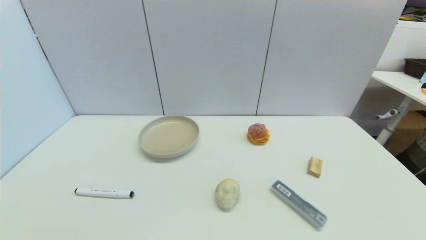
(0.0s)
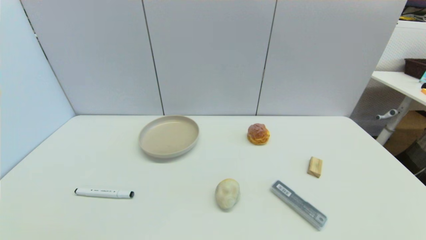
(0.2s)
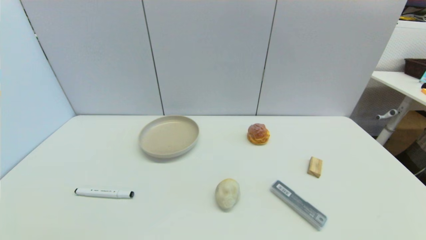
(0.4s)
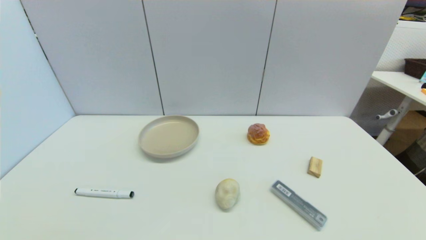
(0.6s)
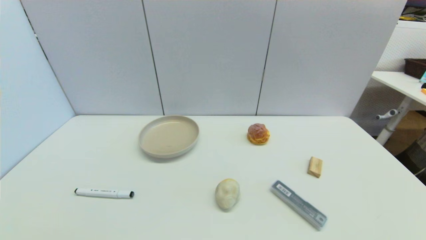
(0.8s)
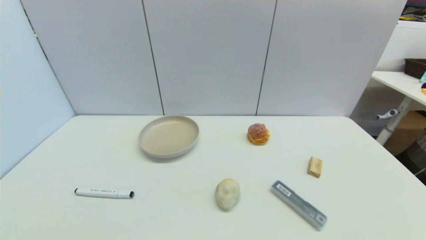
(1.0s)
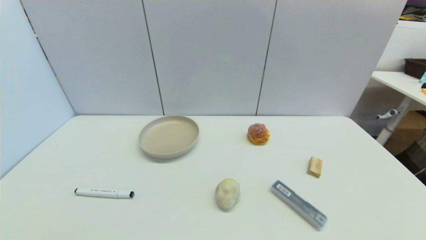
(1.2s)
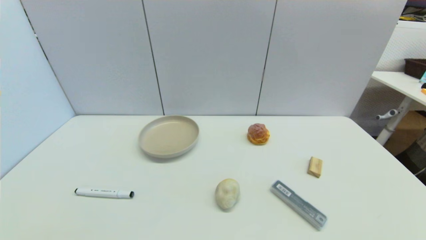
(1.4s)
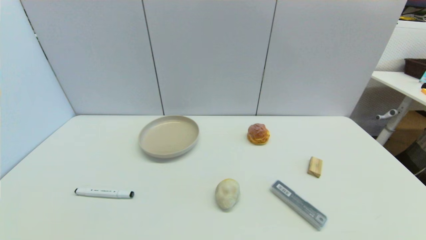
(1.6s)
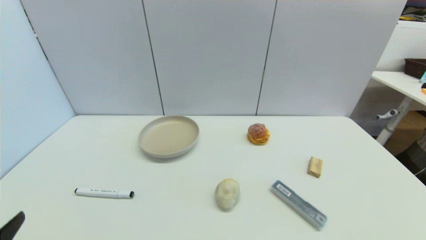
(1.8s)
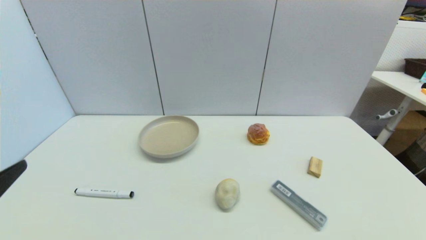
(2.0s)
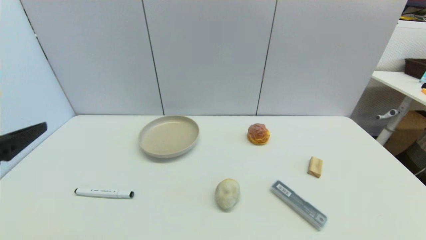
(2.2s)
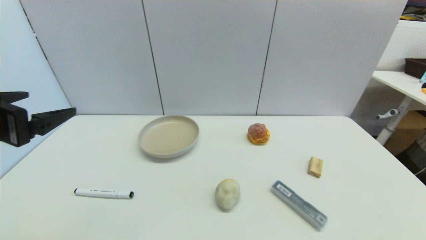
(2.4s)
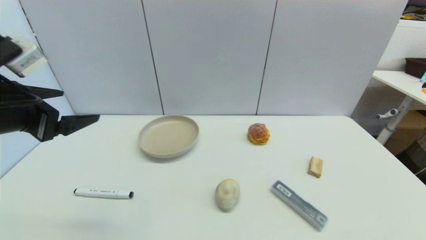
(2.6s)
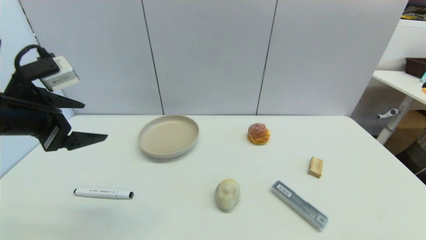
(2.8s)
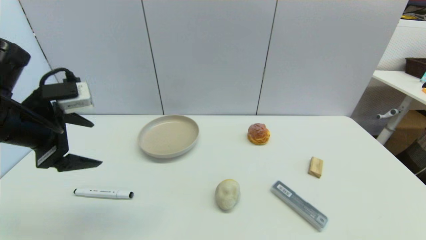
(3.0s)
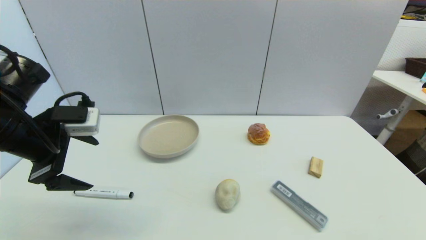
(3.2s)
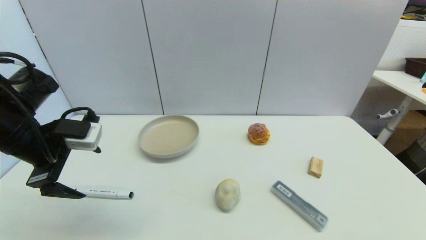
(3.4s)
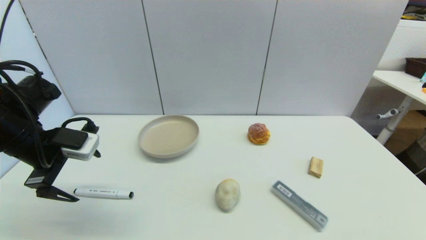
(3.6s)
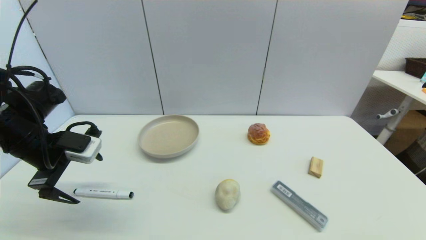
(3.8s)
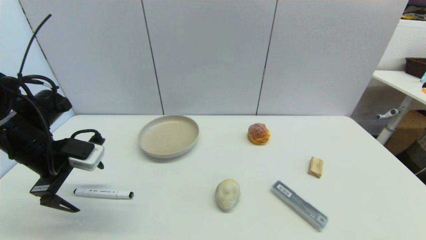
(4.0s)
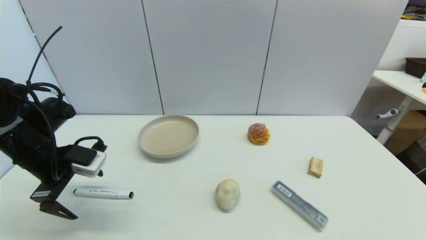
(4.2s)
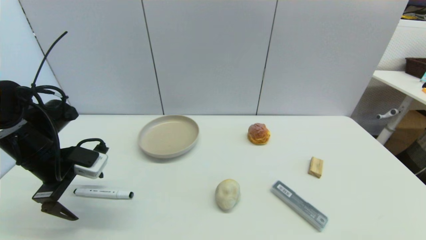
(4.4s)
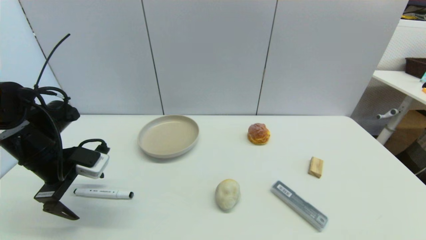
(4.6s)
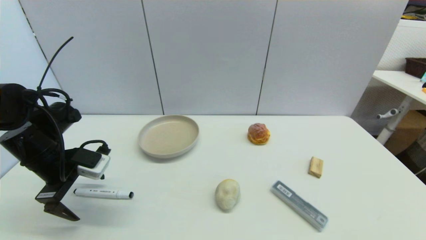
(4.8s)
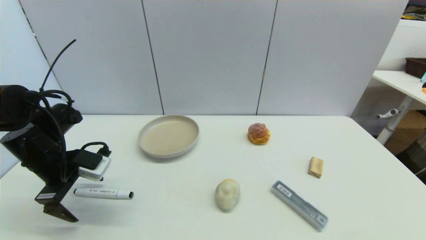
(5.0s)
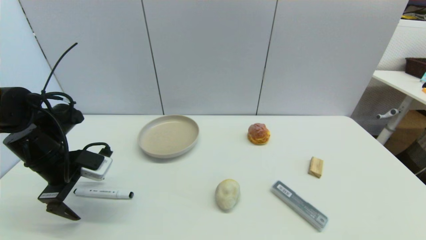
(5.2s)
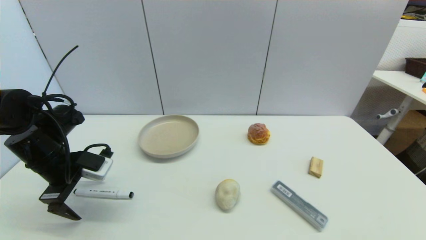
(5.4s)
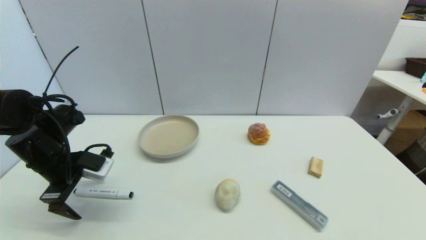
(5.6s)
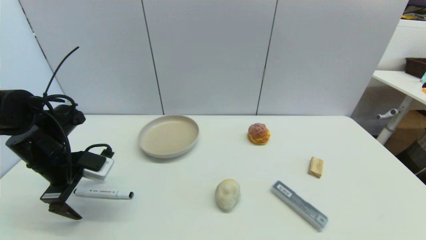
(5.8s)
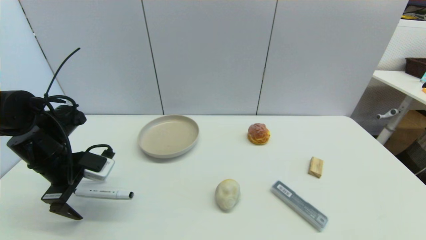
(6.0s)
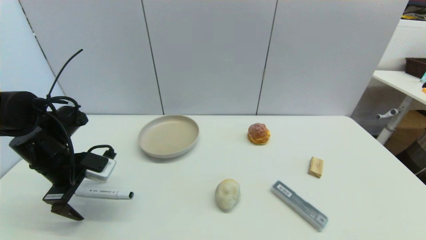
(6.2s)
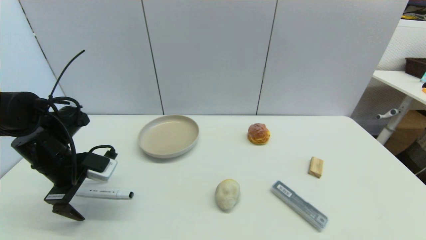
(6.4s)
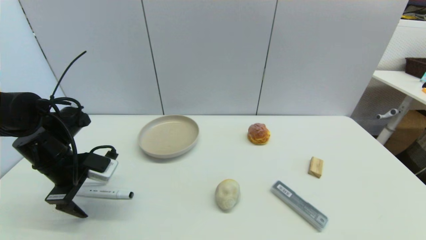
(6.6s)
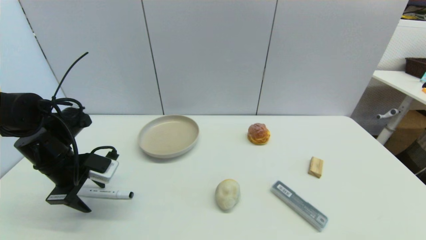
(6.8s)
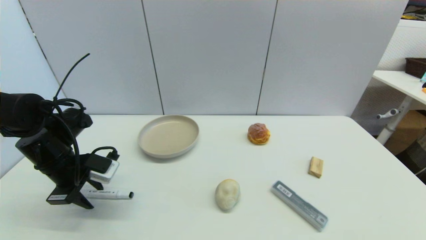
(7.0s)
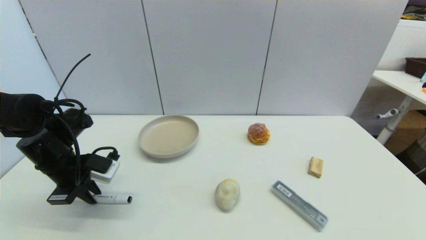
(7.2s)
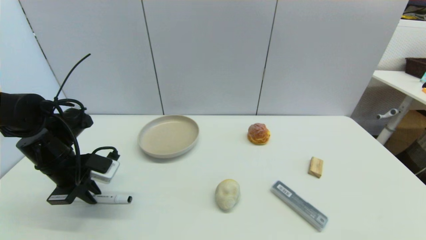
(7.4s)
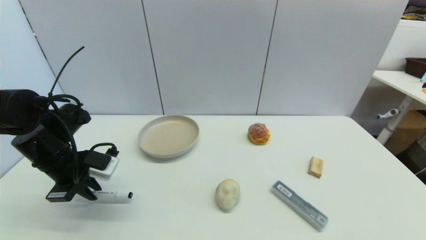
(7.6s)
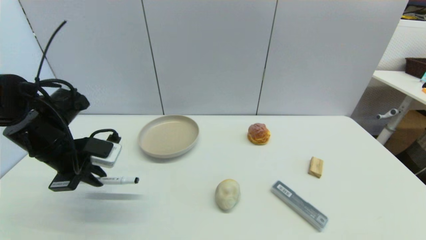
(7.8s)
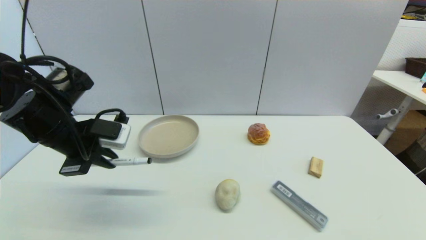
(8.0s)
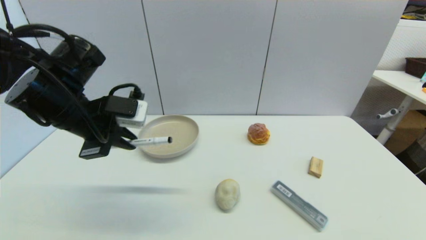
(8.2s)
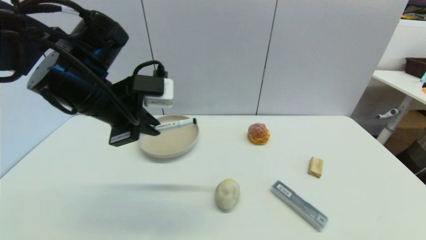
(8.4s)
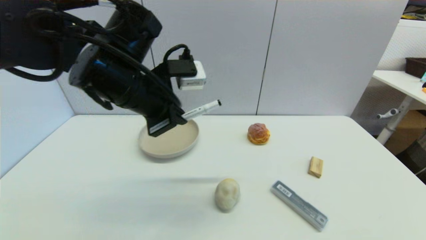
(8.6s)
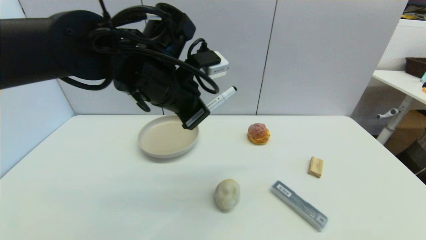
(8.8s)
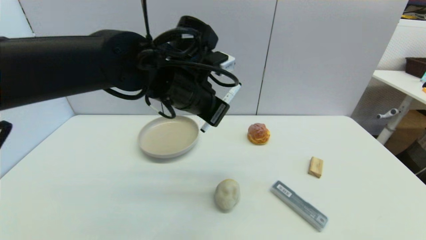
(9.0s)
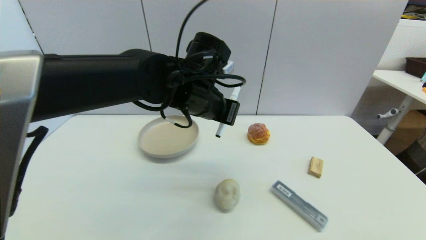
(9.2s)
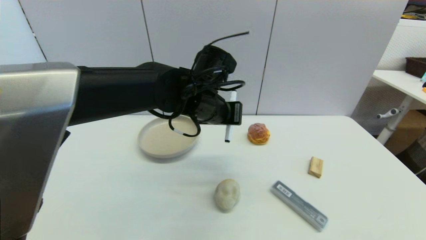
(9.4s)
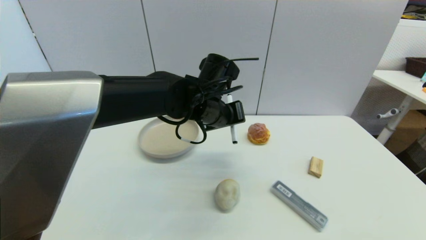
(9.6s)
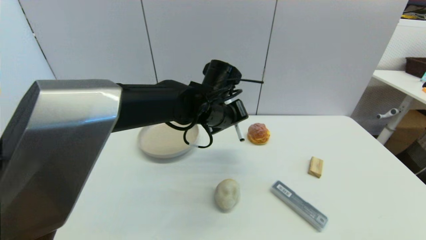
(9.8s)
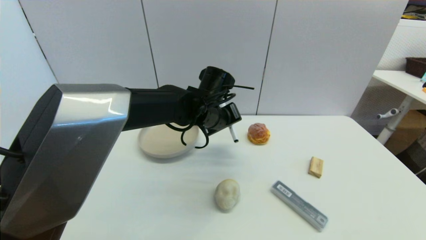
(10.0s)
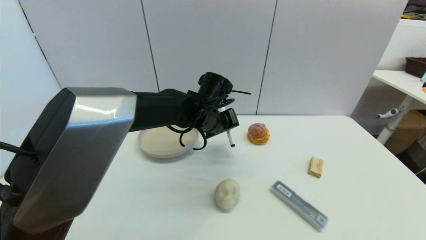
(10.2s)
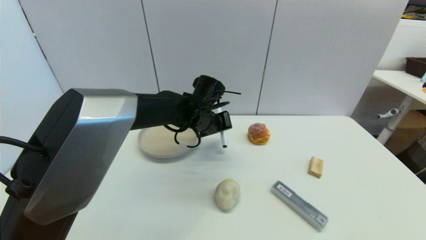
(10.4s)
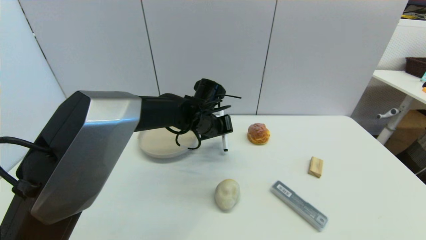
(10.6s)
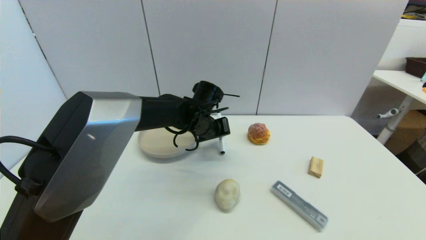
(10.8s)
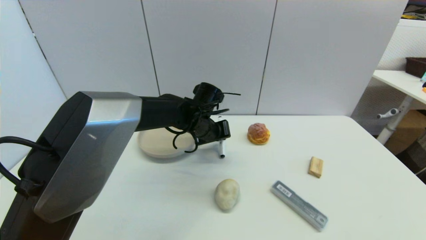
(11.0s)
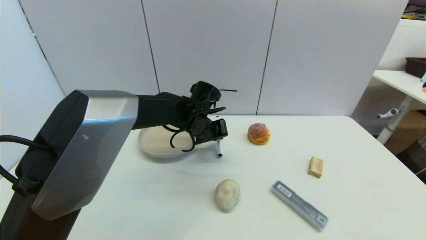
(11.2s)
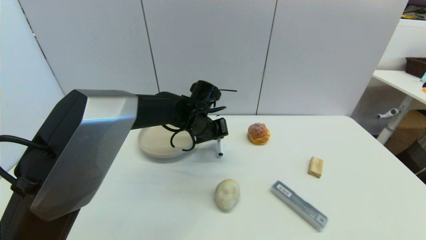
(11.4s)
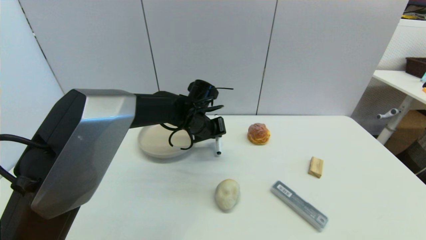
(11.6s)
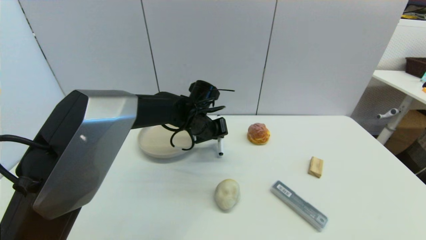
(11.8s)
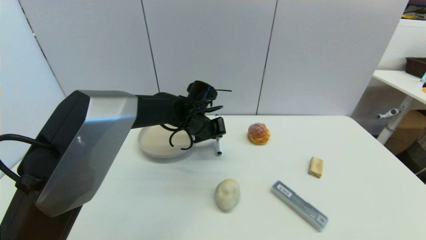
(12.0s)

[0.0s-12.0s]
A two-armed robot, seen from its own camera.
Task of the whole recording: put the black marker in the designated position.
Step, 1.8s to 7.4s: Grasp the Marker pen with left gripper.
1.6s to 3.0s: The left gripper goes some 30 cm forward and upward.
3.0s to 4.4s: The left gripper moves downward, about 10 cm.
4.4s to 6.0s: There are only small adjustments of the grippers.
6.0s to 7.6s: The left gripper closes its fingers.
7.6s to 9.0s: The left gripper heads to the right and upward, covering some 30 cm.
9.0s to 10.4s: The left gripper is displaced downward and forward by roughly 15 cm.
10.4s to 12.0s: The grippers stay close to where they were, moving slightly.

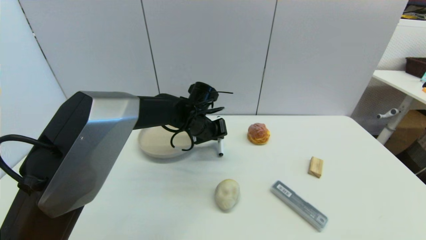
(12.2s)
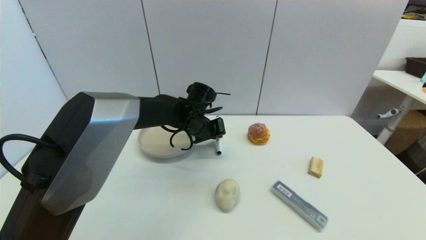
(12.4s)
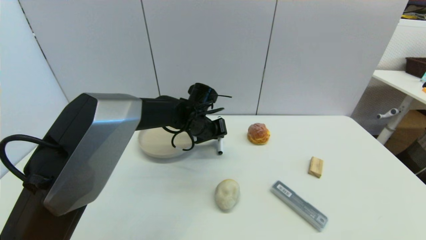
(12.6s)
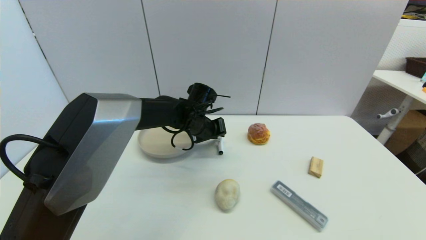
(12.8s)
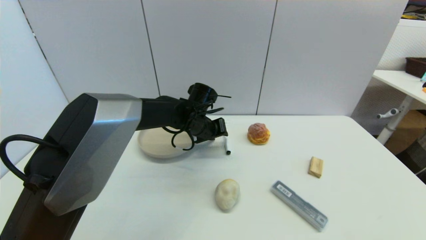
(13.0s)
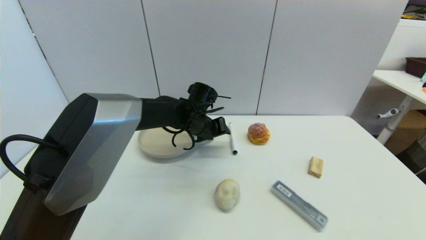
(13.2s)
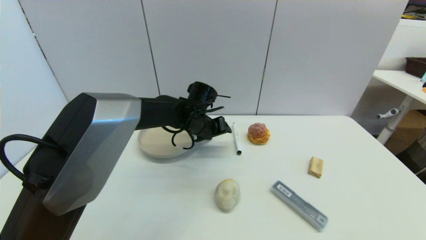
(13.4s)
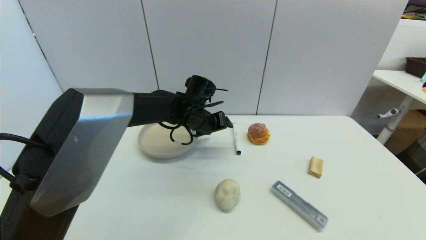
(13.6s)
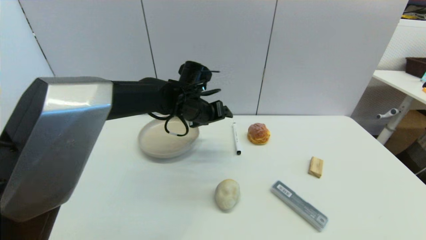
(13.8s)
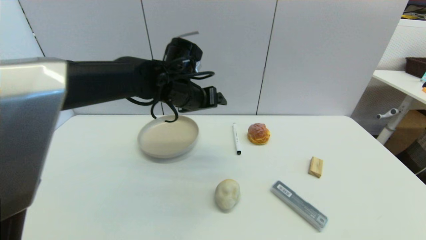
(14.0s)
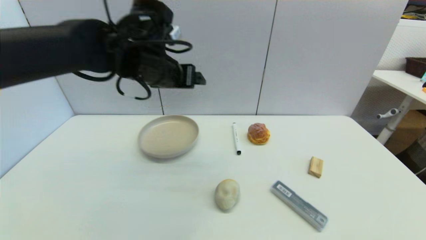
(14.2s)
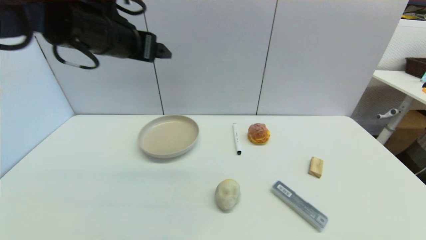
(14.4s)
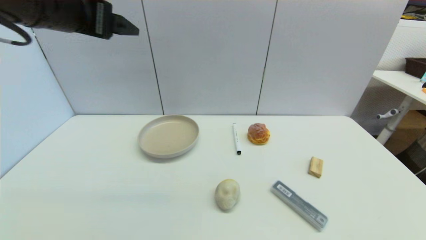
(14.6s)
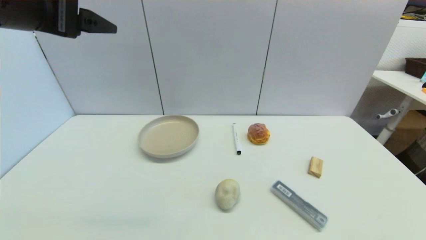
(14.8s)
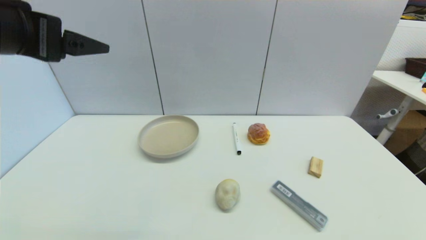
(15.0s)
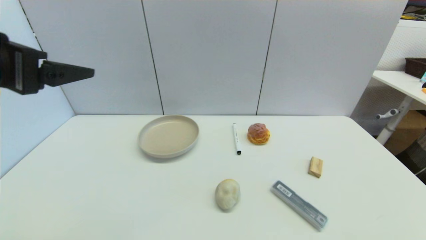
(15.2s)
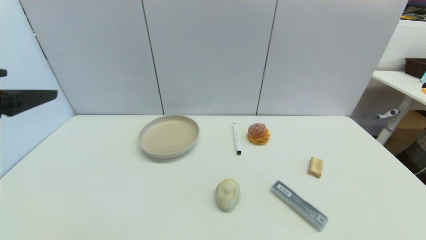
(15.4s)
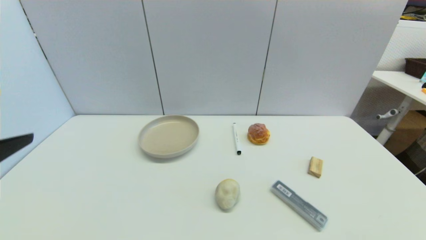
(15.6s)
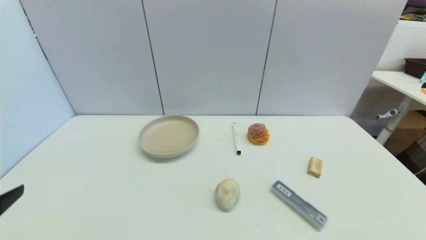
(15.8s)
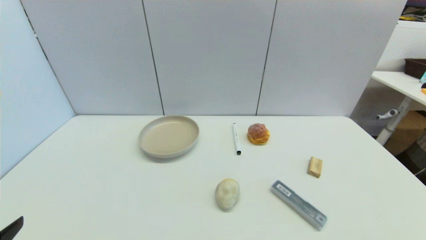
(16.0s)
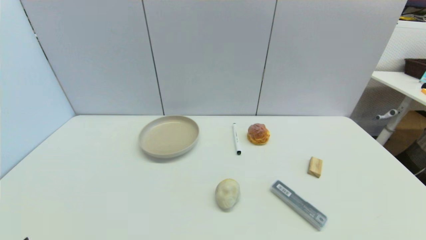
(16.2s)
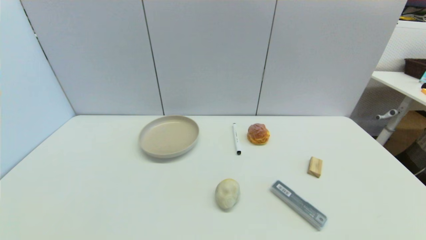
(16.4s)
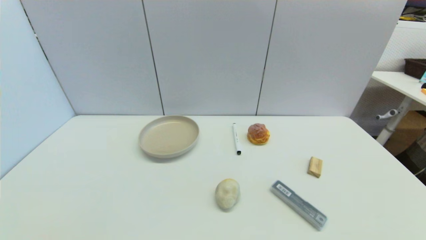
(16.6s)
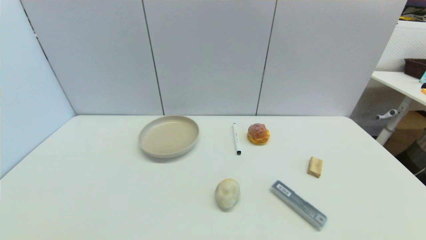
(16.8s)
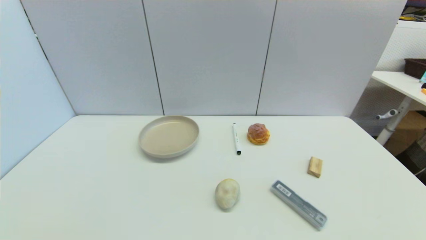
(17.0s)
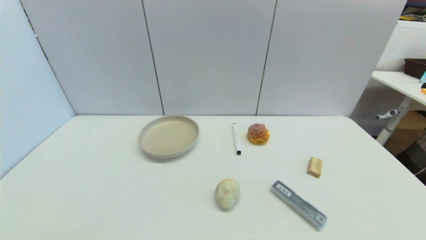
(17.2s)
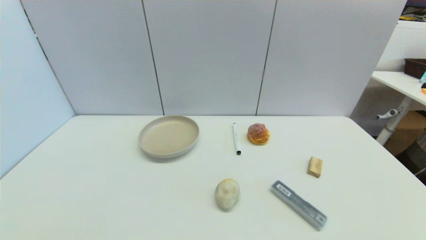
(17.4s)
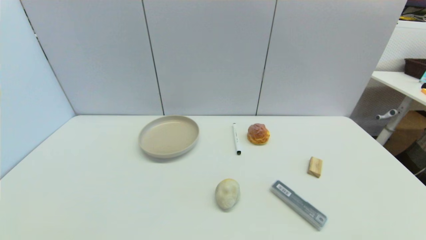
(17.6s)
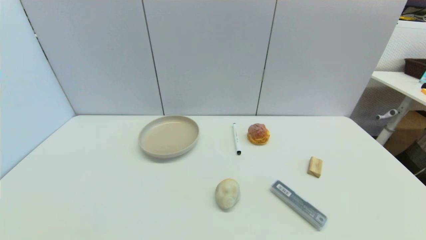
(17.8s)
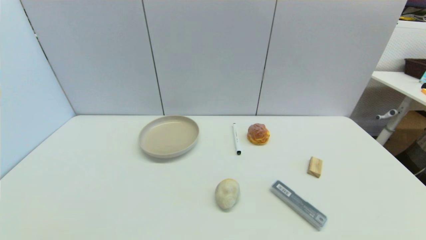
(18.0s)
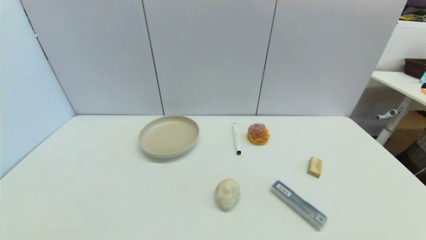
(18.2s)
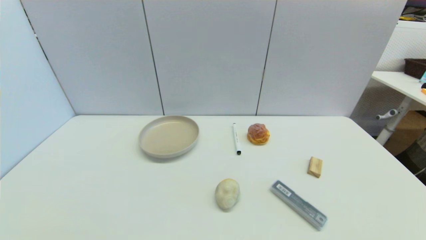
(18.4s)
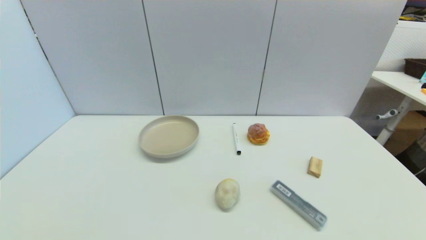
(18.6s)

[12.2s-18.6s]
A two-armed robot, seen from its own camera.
Task of the whole recording: put the black marker in the designated position.
12.2s to 13.8s: The left gripper moves upward, about 5 cm, and opens up.
13.8s to 15.4s: The left gripper shifts approximately 40 cm backward, to the left and upward.
15.4s to 17.0s: The left gripper shifts about 30 cm downward and backward.
17.0s to 18.6s: Both grippers stay put.
